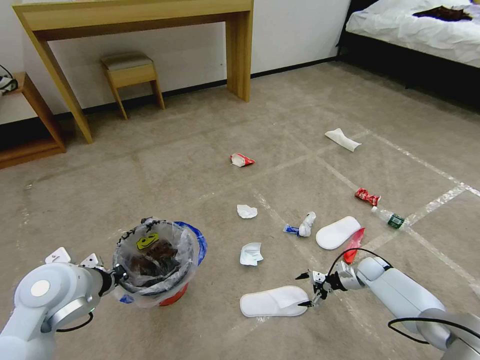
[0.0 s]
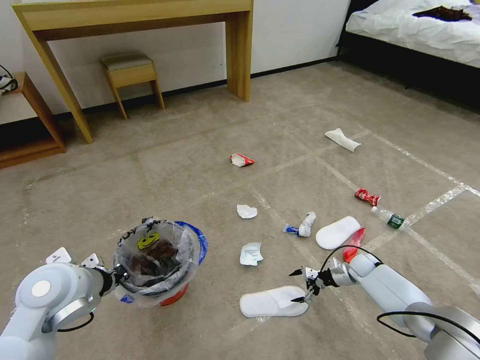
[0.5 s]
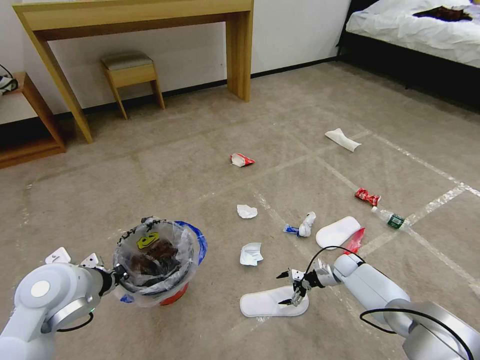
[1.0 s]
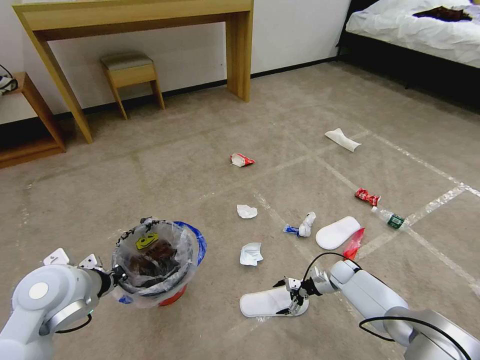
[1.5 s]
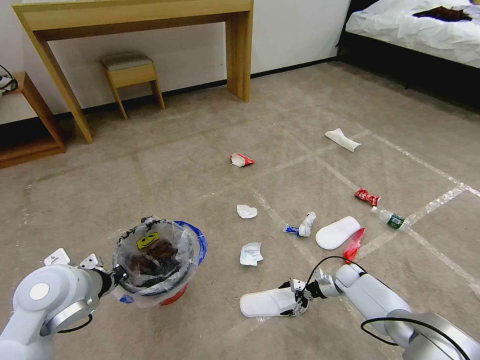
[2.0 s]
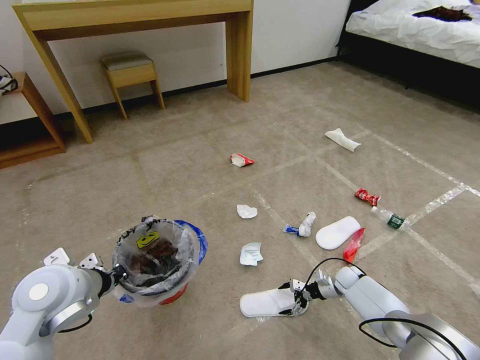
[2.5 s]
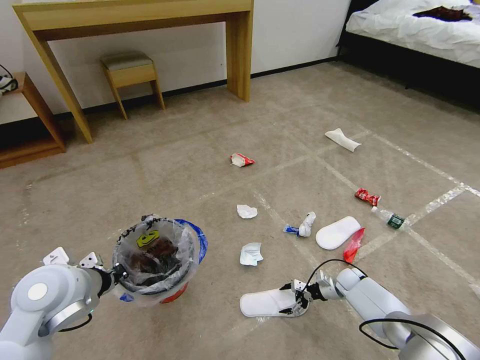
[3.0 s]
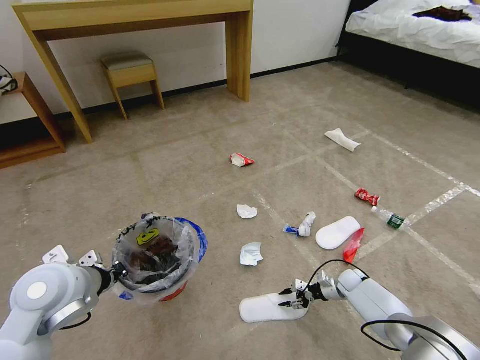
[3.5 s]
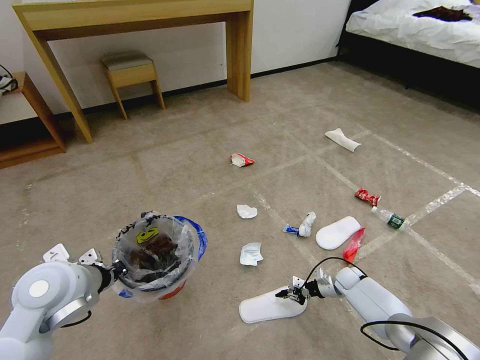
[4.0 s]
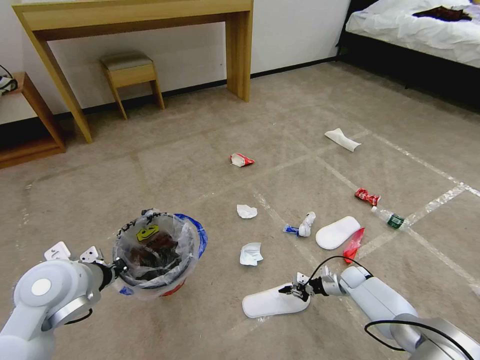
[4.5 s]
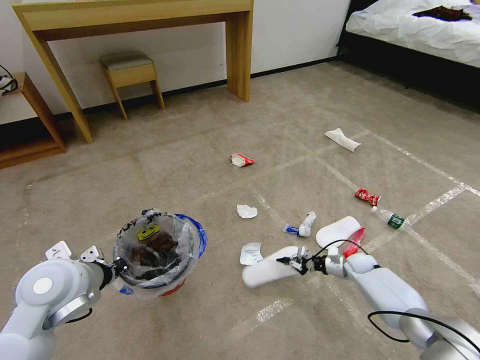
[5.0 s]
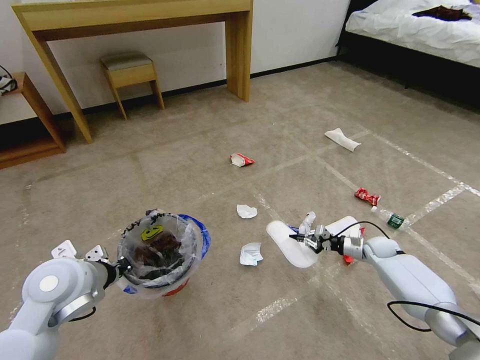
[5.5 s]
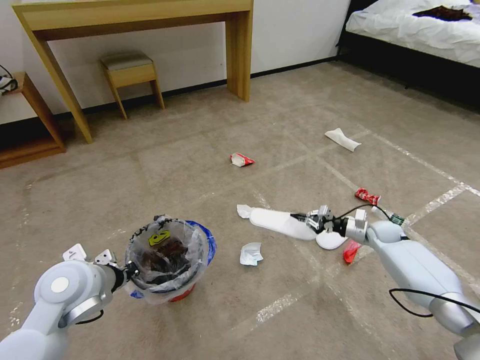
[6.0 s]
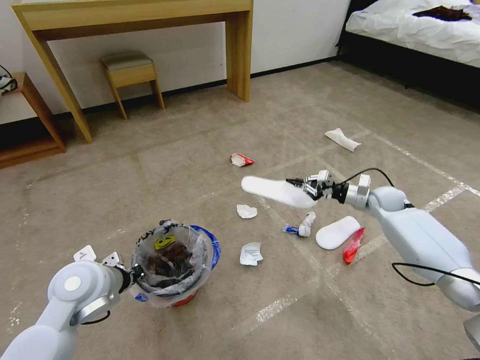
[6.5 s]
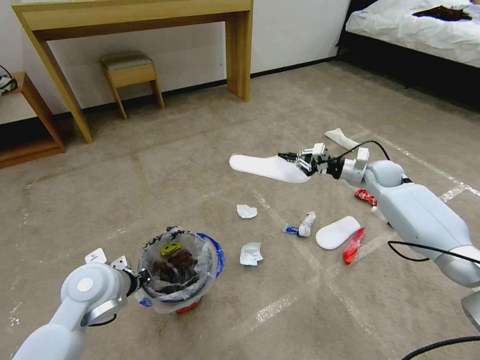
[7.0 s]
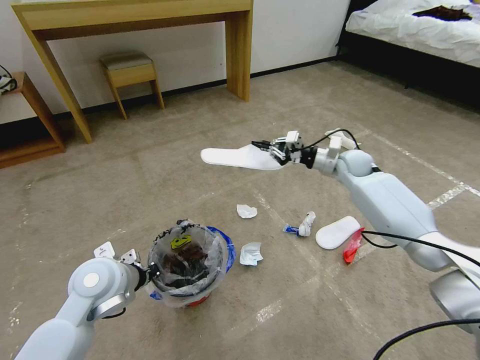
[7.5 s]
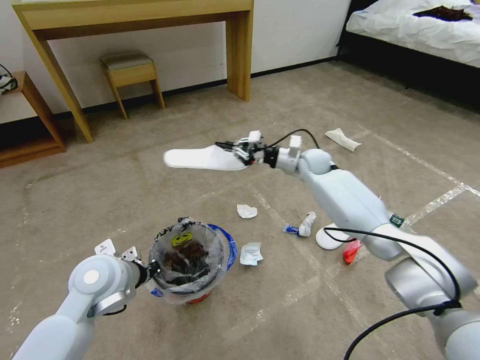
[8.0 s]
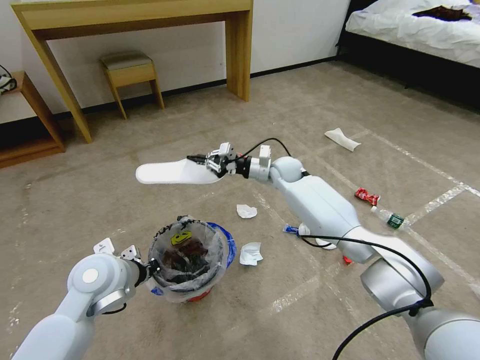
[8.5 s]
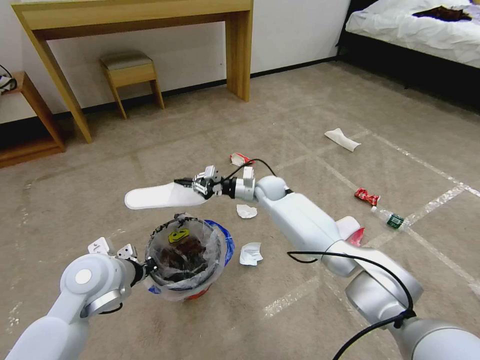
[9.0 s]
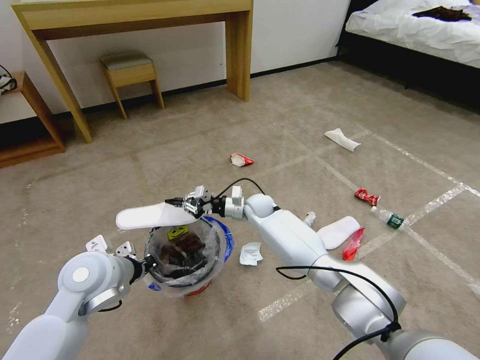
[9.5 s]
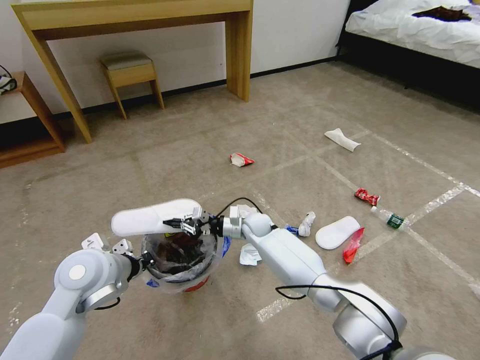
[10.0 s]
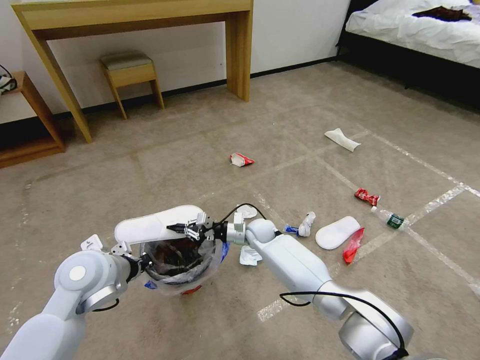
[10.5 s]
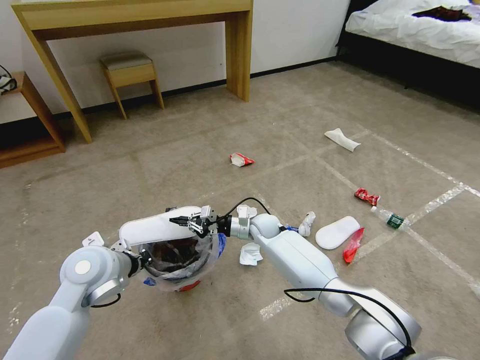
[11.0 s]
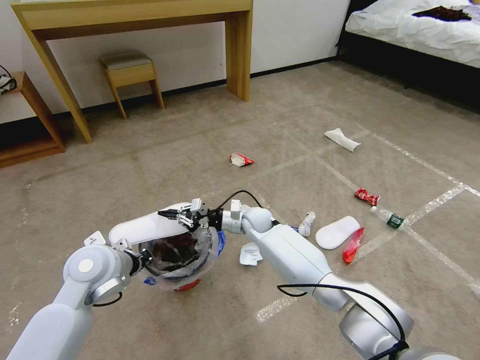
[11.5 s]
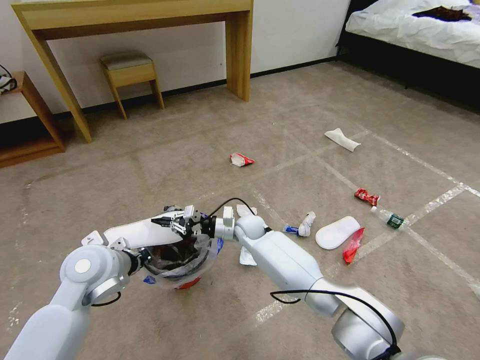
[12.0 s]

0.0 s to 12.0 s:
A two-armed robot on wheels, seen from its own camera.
Task of the whole recording: Pick up the trash bin and place the garbage on the floor into it.
0.0 to 2.0 s: The right gripper moves to the left, some 5 cm.
2.0 to 4.0 s: The right gripper closes its fingers.
4.0 to 6.0 s: The right gripper goes roughly 20 cm upward, forward and to the right.
6.0 to 8.0 s: The right gripper heads to the left, upward and forward, covering approximately 35 cm.
8.0 to 10.0 s: The right gripper shifts some 25 cm downward, to the left and backward.
10.0 to 12.0 s: The grippers make only small movements.

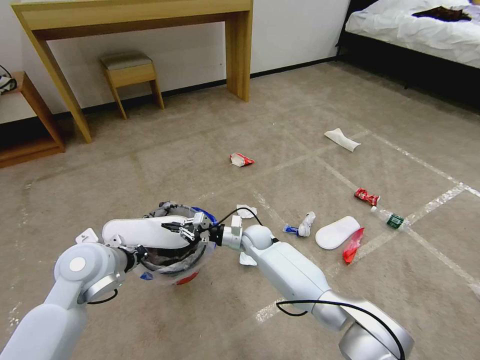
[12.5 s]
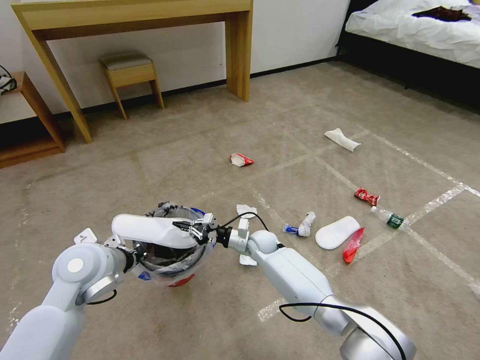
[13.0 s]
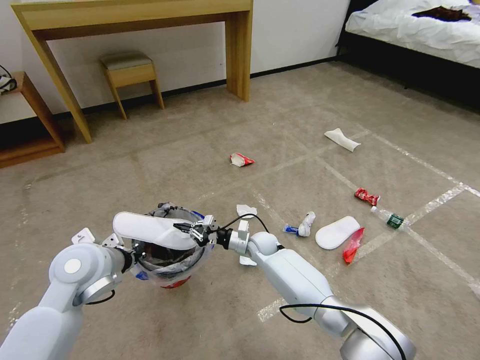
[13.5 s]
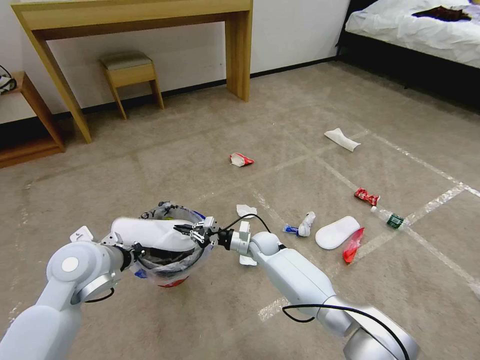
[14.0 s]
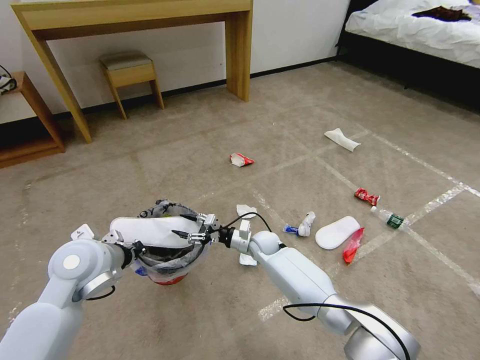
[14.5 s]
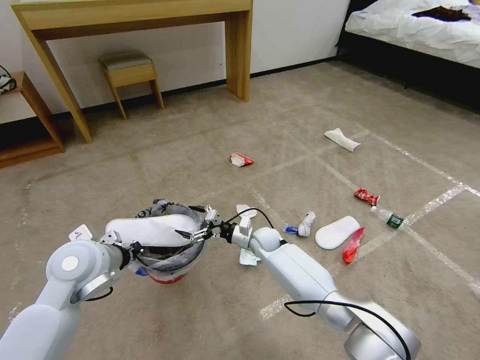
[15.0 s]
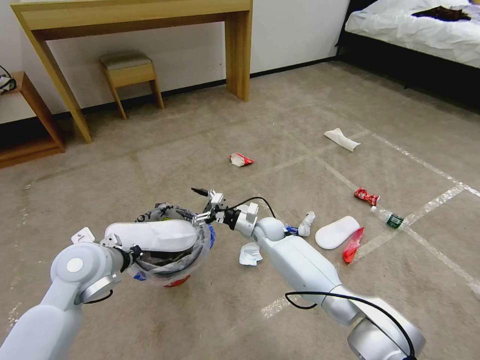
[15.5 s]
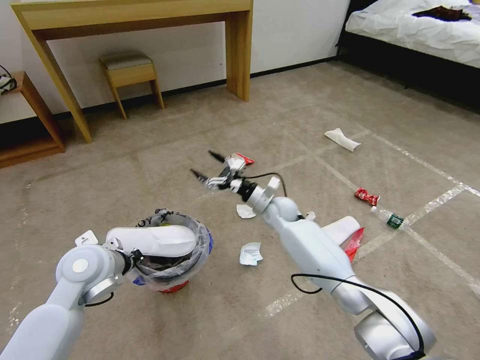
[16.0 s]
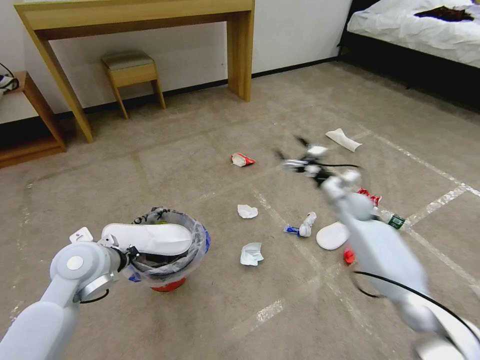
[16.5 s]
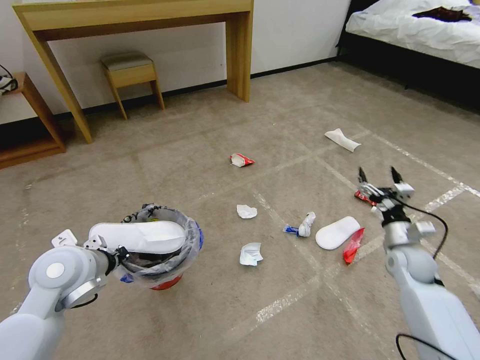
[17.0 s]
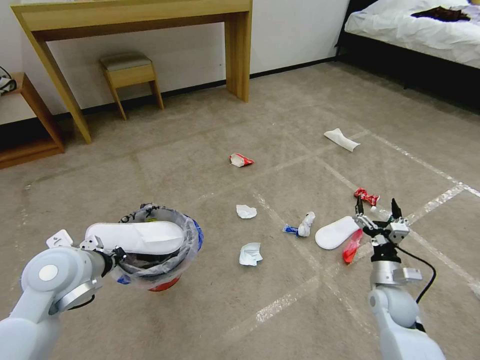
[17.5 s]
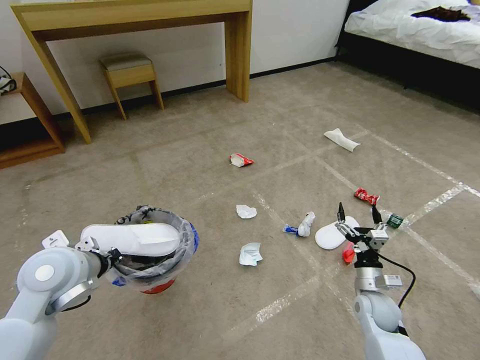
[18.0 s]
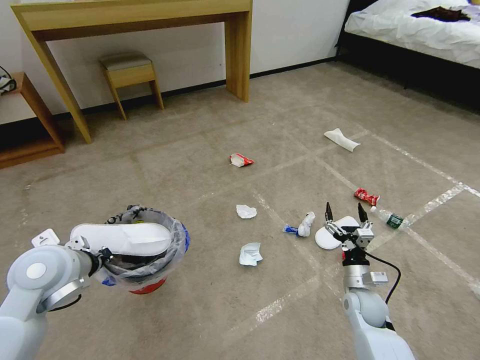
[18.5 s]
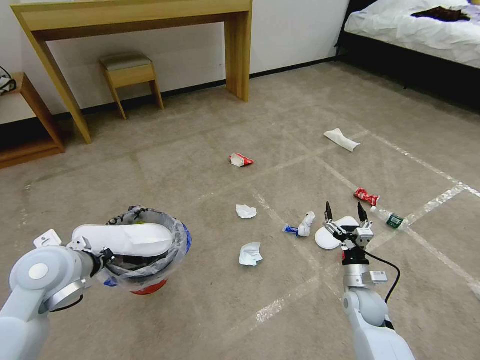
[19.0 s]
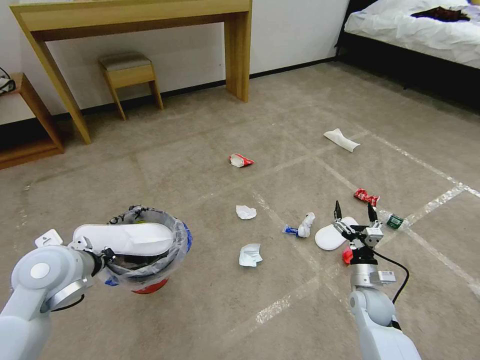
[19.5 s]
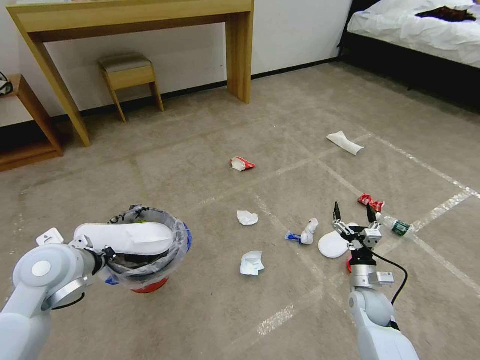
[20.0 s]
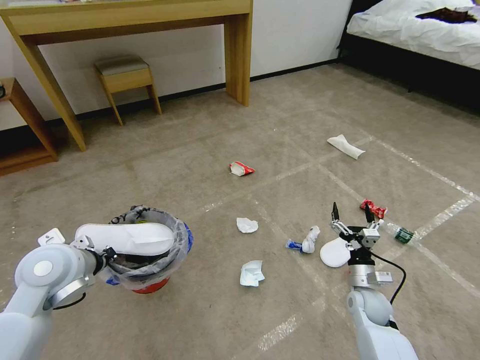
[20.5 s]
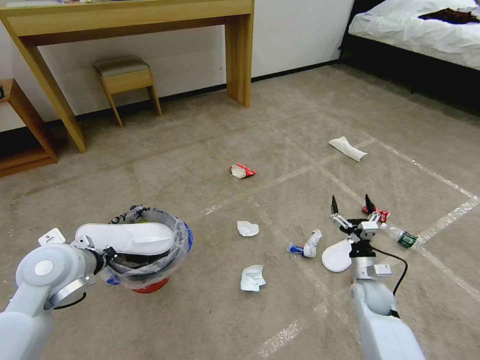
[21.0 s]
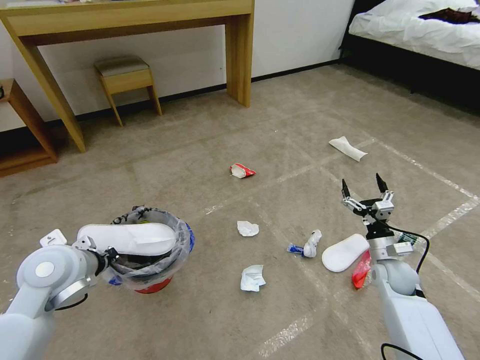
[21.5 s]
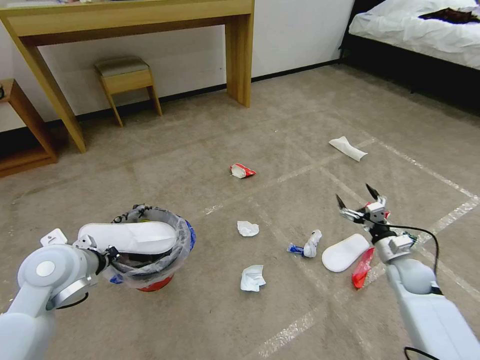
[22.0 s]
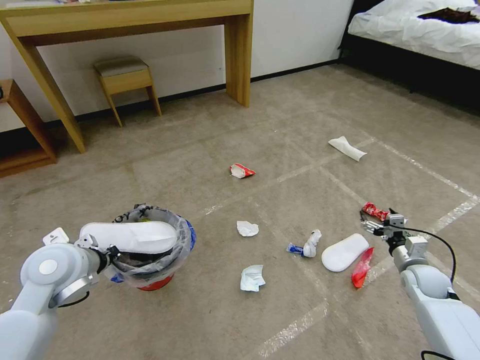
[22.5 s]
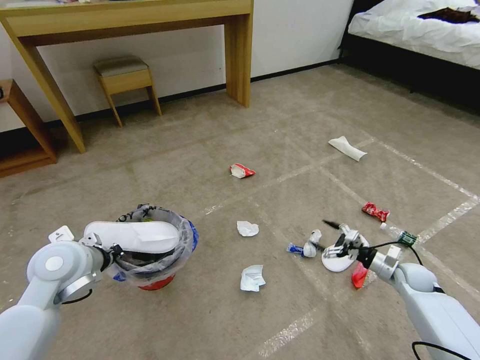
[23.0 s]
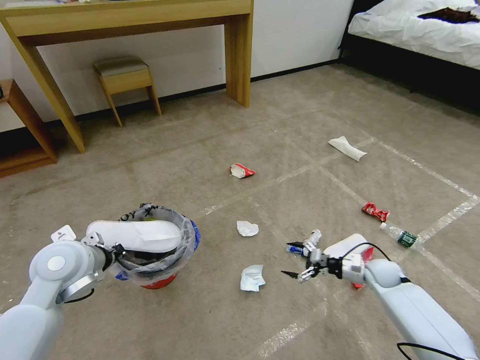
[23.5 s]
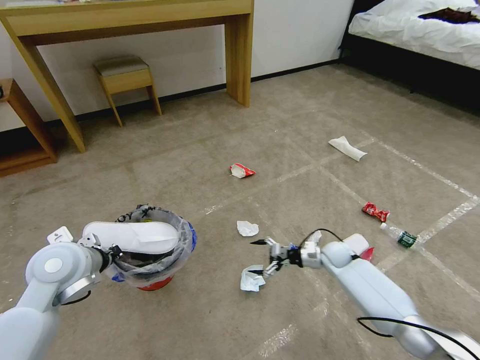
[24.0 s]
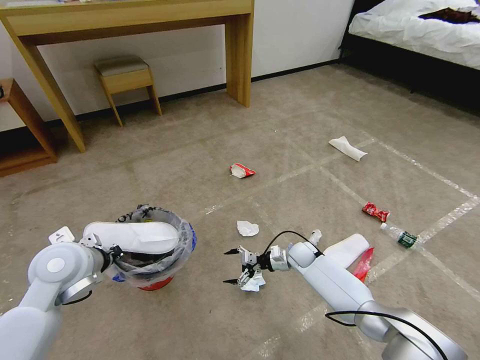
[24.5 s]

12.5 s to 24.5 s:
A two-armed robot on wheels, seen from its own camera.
Task of the whole recording: Pick up the trash bin and place the garbage on the floor into it.
12.5 to 14.5 s: The right gripper opens its fingers.
14.5 to 16.5 s: The right gripper shifts about 30 cm to the right and upward, and opens.
16.5 to 18.5 s: The left gripper shifts by approximately 5 cm. The right gripper travels backward and downward by some 25 cm.
18.5 to 20.5 s: The grippers make only small movements.
20.5 to 22.5 s: The right gripper heads to the right, covering about 15 cm.
22.5 to 24.5 s: The right gripper moves to the left and forward, about 30 cm.

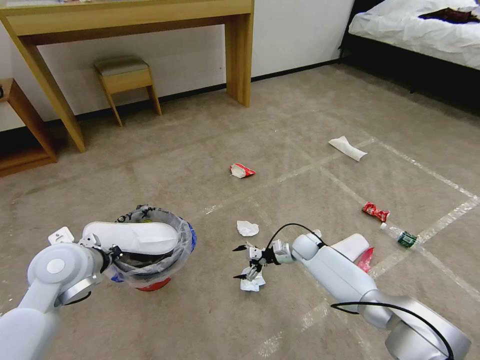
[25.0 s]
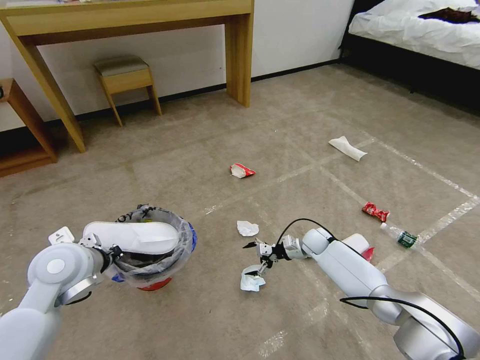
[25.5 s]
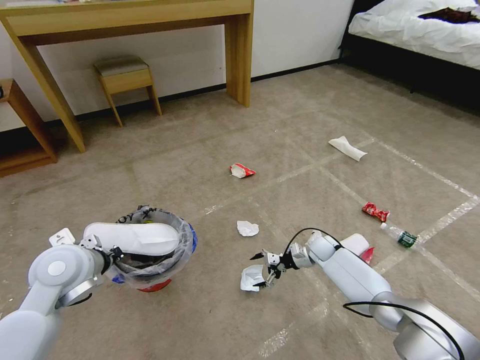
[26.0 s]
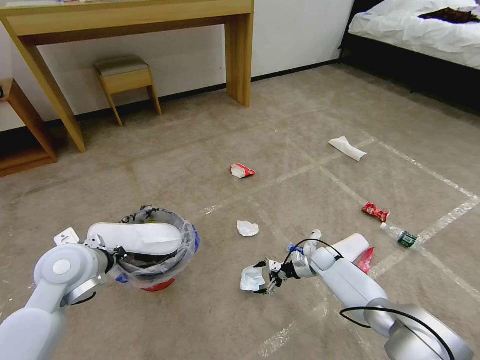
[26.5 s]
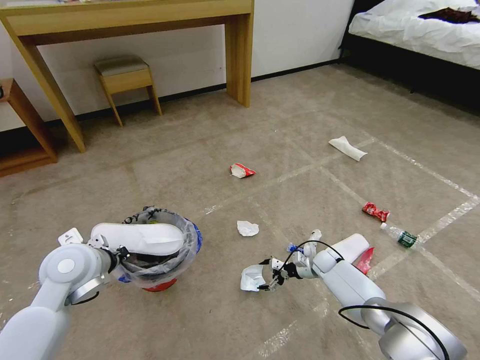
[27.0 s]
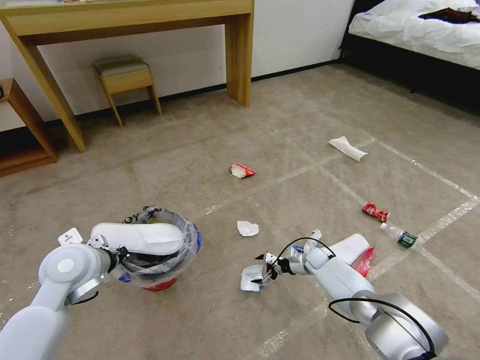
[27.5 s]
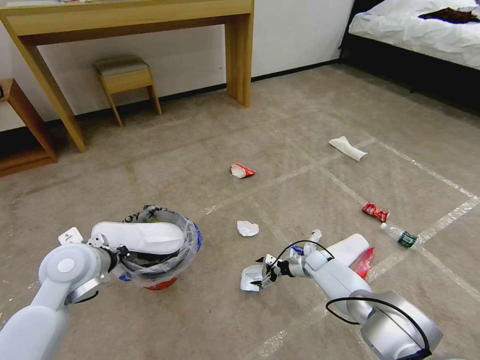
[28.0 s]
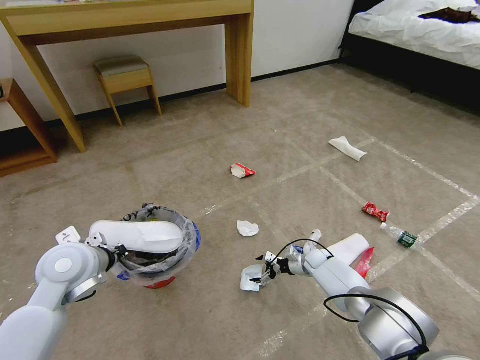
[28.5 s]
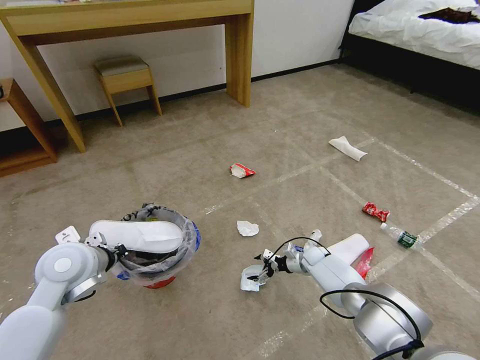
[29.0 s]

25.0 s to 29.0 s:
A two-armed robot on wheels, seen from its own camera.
Task of the whole recording: Pick up the trash bin and place the garbage on the floor into it.
25.0 to 27.0 s: The right gripper heads to the right and downward, covering approximately 10 cm.
27.0 to 29.0 s: The grippers move only a little.
